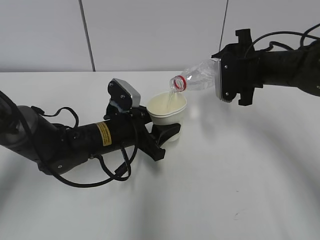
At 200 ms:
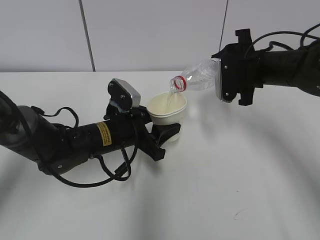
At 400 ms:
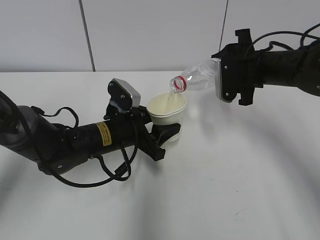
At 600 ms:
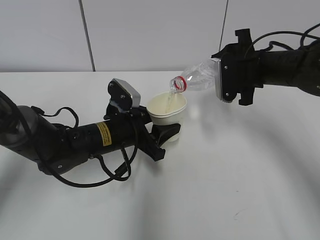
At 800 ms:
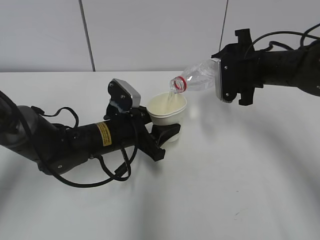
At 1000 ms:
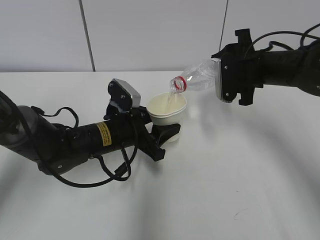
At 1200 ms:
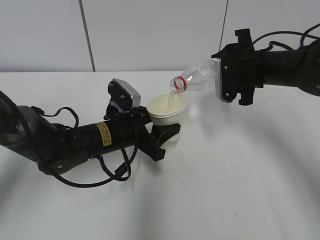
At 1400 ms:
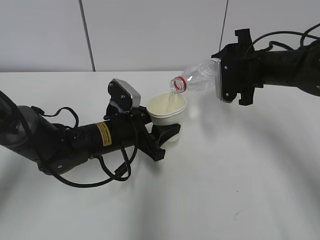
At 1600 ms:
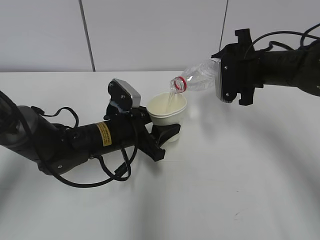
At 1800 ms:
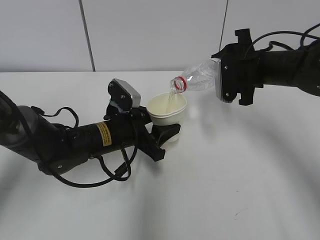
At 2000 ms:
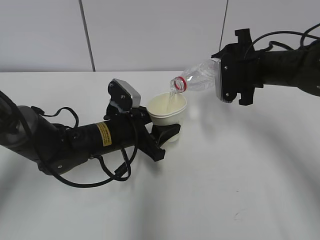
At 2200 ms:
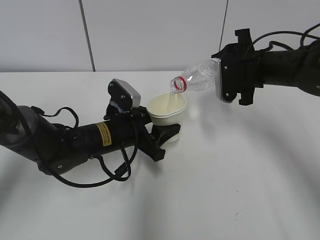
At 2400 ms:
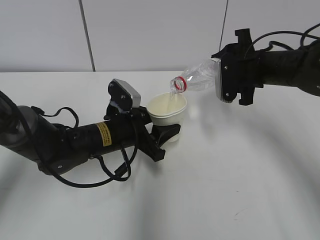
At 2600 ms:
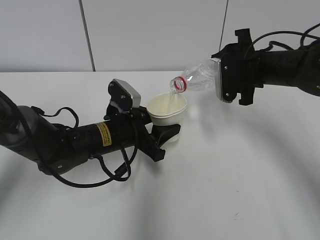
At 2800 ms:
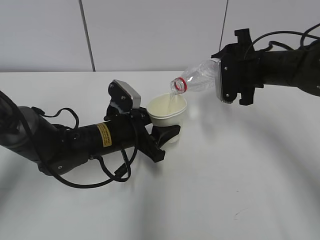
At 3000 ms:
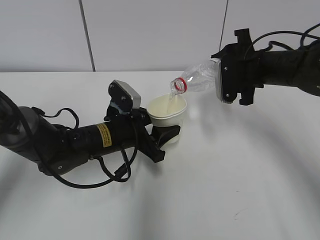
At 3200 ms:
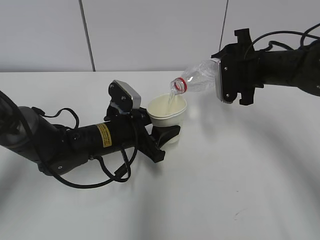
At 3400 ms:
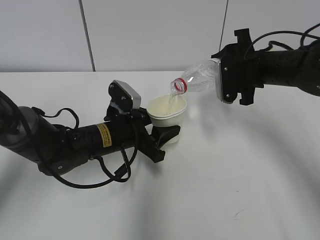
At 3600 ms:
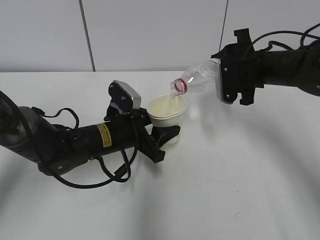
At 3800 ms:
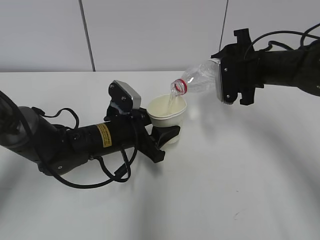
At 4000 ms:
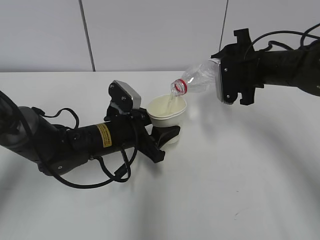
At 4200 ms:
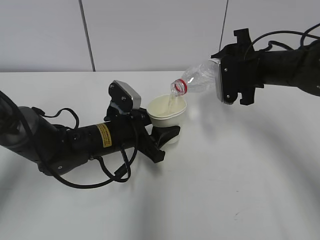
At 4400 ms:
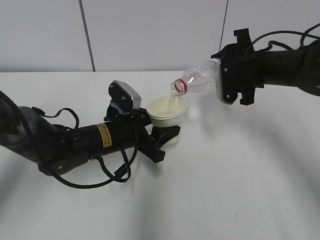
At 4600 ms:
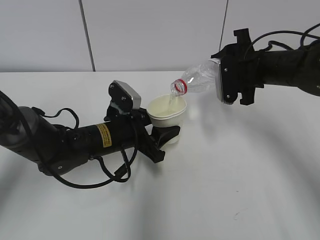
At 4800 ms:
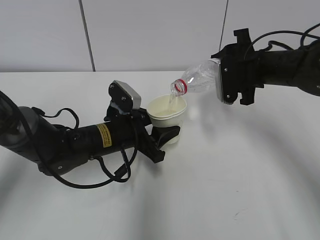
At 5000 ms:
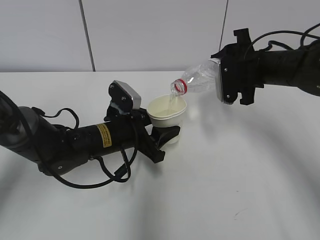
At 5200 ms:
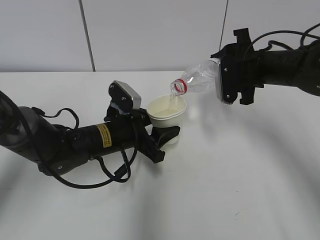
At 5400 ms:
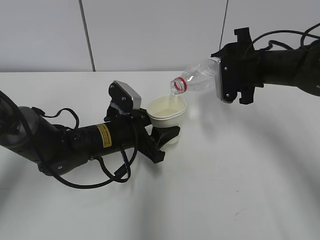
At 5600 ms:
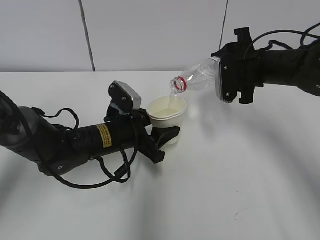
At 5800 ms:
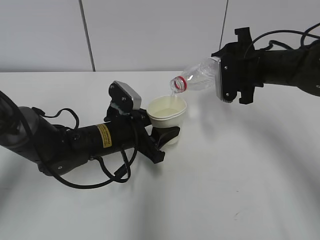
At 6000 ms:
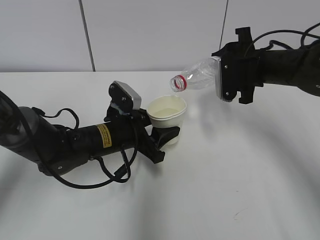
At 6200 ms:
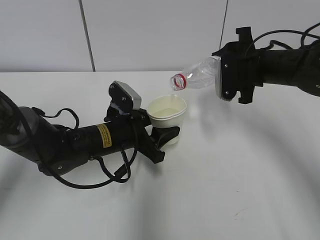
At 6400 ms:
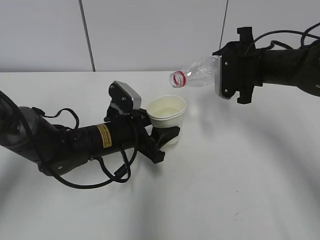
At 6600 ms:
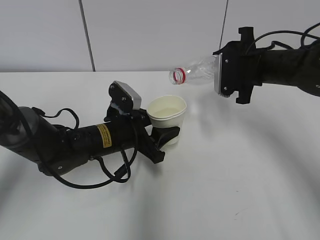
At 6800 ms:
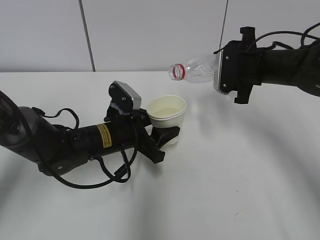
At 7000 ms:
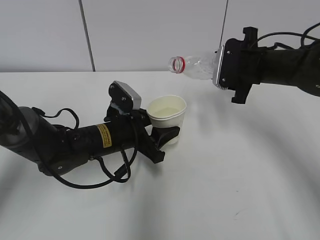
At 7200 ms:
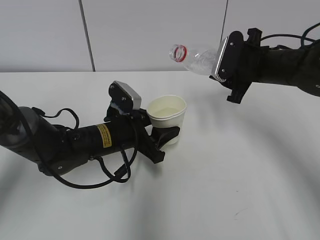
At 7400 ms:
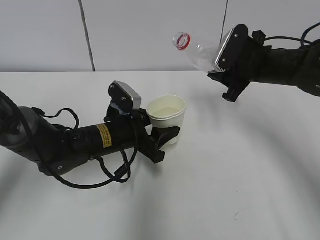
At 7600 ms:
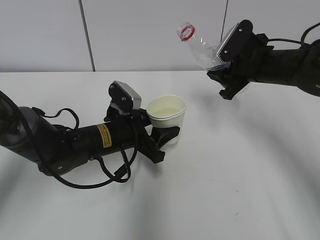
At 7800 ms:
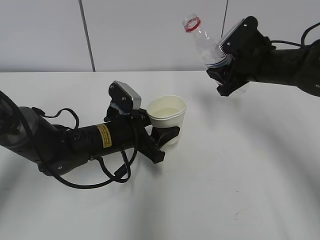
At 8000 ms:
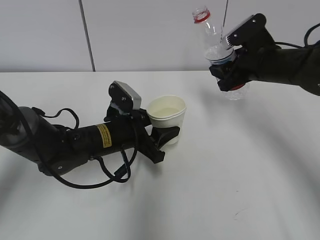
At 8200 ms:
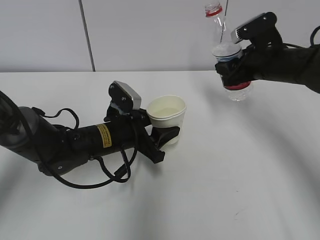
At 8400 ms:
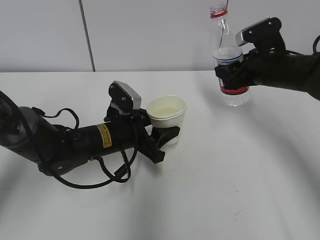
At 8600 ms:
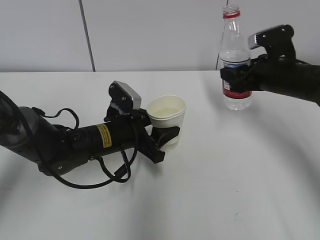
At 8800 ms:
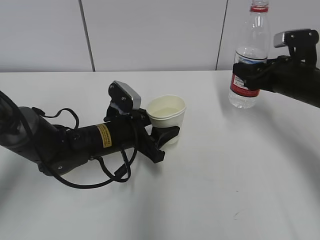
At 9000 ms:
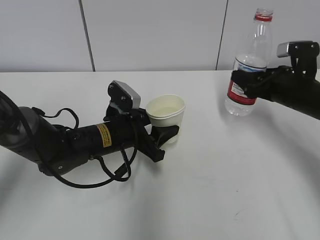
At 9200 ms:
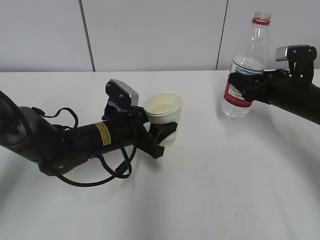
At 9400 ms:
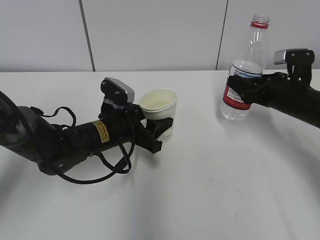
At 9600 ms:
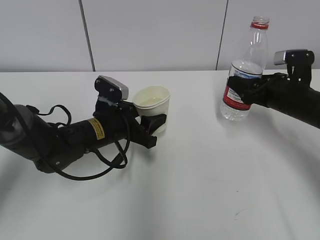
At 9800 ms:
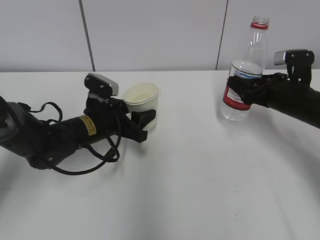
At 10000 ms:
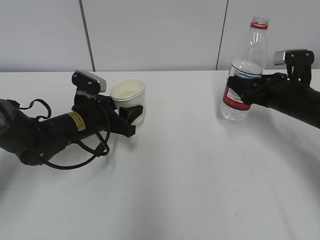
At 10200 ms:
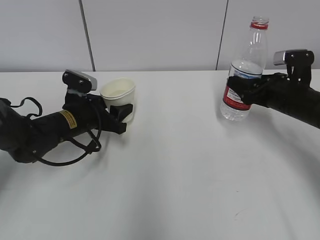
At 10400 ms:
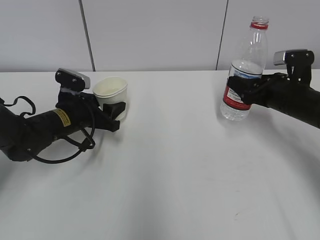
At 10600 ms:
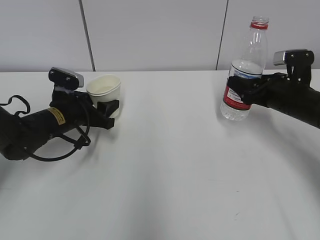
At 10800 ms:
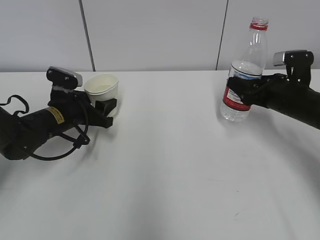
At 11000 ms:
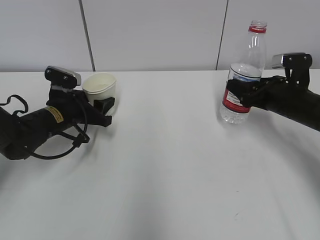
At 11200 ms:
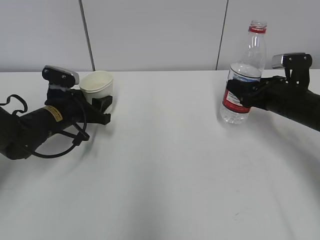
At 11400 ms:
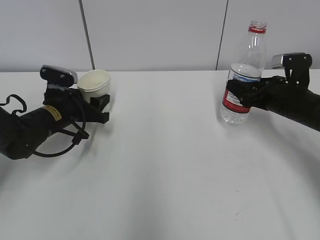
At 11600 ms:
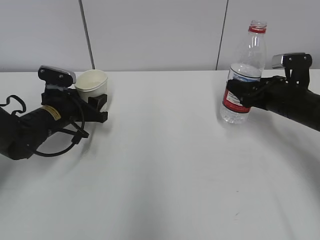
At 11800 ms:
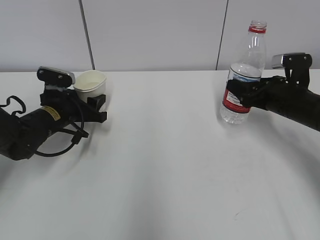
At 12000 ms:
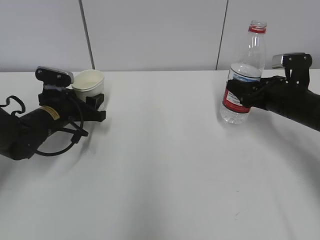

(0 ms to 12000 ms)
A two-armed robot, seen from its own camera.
Step, 4800 ms - 11400 ms: Place the paper cup with the left hand.
0 ms - 6000 ms: The two grippers keep their place.
7600 ms - 9000 ms: The right gripper shifts about 5 cm to the right.
9000 ms - 10400 ms: The left gripper moves to the left, roughly 10 cm.
10400 ms - 12000 ms: The grippers stay close to where they were, moving slightly.

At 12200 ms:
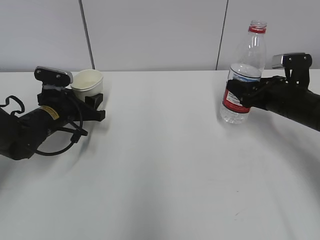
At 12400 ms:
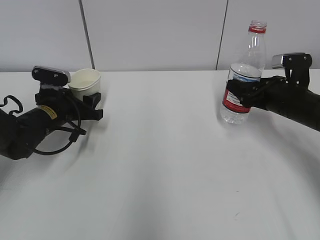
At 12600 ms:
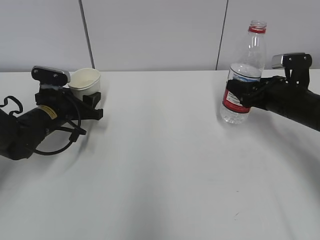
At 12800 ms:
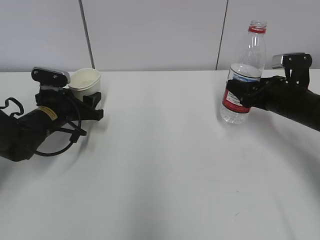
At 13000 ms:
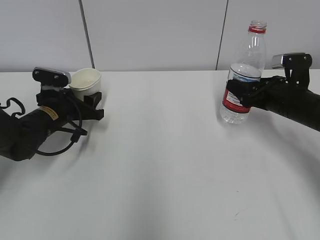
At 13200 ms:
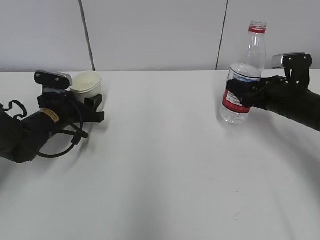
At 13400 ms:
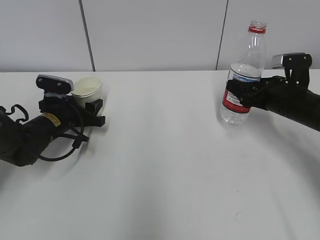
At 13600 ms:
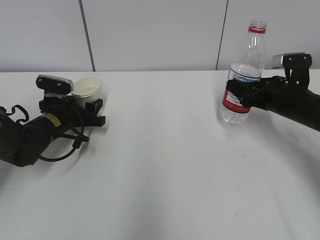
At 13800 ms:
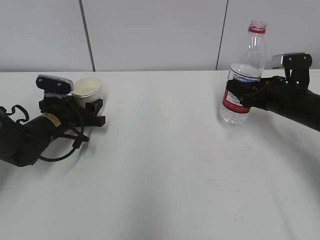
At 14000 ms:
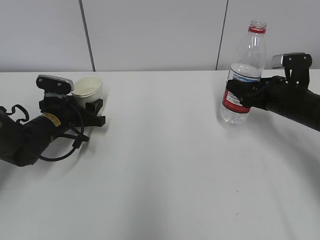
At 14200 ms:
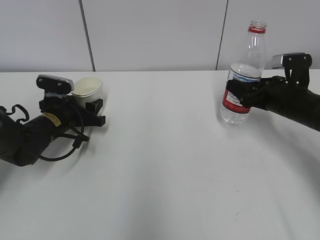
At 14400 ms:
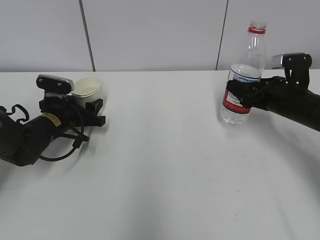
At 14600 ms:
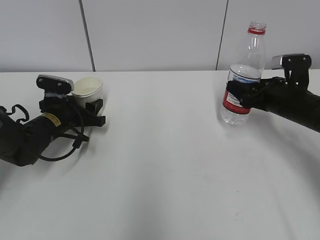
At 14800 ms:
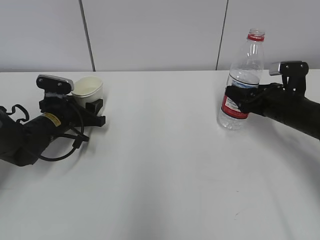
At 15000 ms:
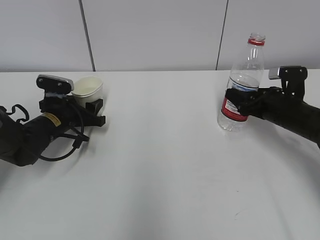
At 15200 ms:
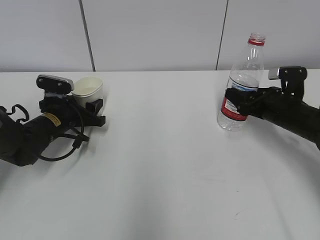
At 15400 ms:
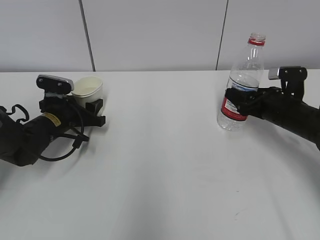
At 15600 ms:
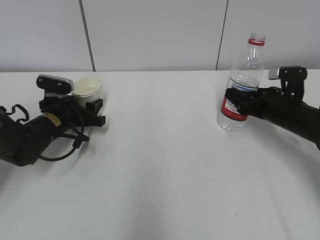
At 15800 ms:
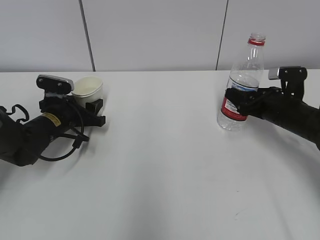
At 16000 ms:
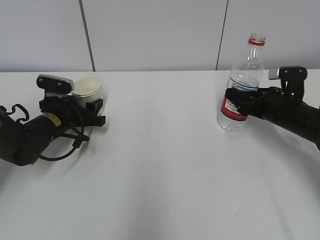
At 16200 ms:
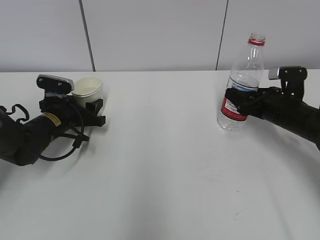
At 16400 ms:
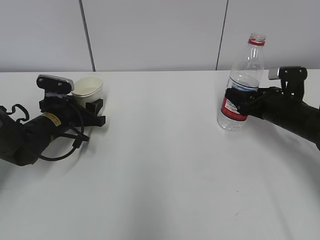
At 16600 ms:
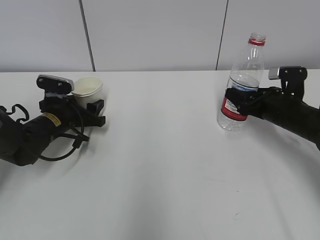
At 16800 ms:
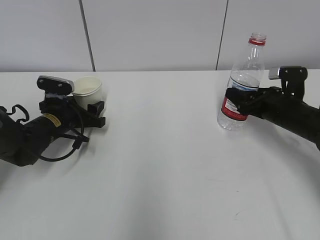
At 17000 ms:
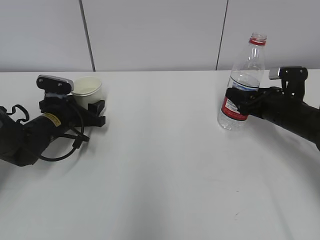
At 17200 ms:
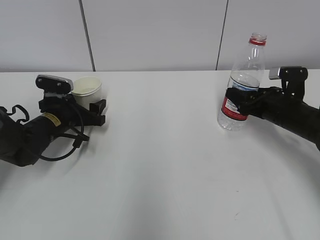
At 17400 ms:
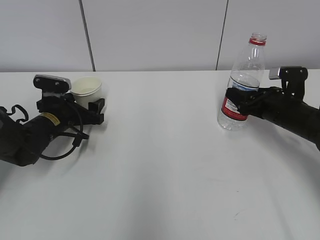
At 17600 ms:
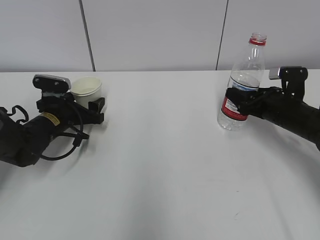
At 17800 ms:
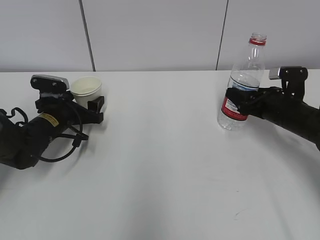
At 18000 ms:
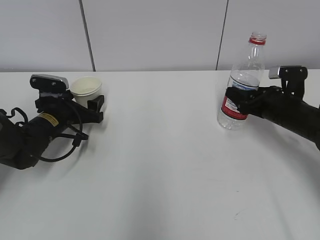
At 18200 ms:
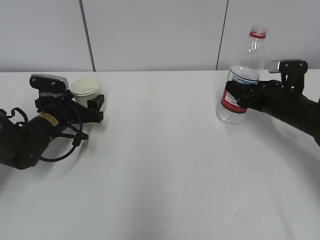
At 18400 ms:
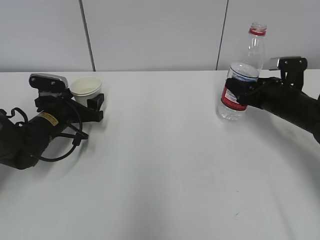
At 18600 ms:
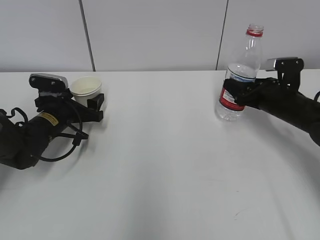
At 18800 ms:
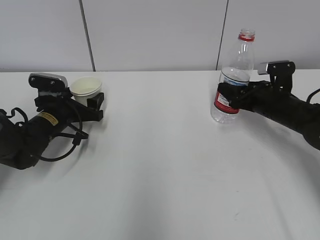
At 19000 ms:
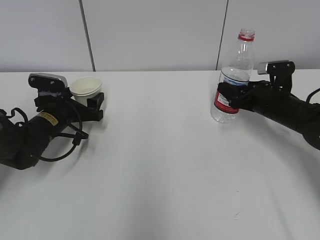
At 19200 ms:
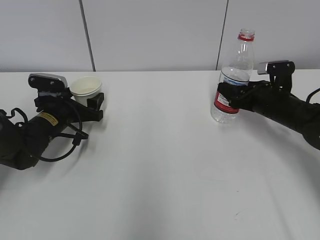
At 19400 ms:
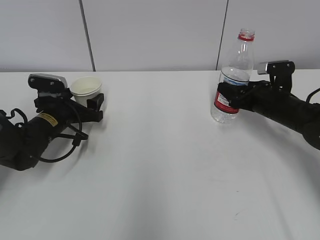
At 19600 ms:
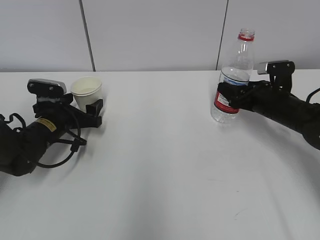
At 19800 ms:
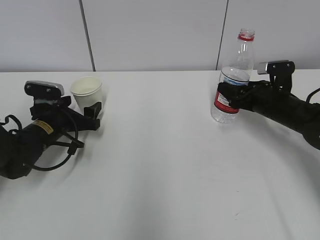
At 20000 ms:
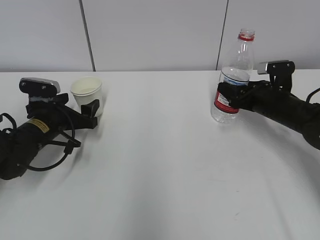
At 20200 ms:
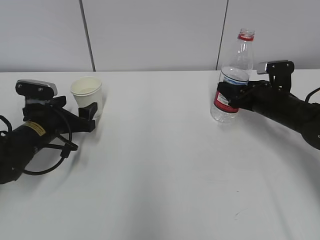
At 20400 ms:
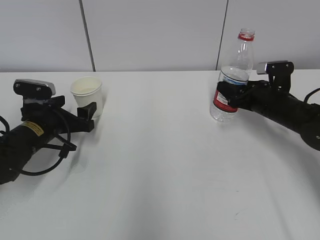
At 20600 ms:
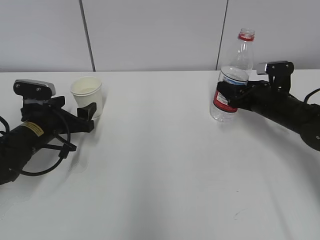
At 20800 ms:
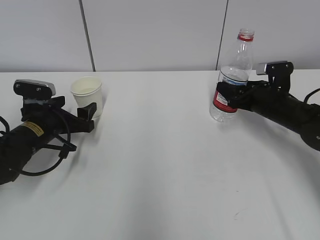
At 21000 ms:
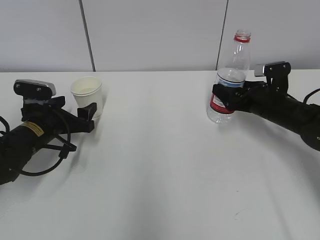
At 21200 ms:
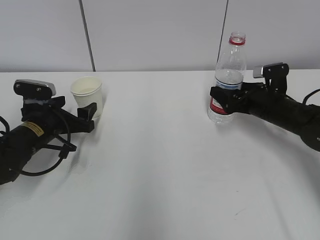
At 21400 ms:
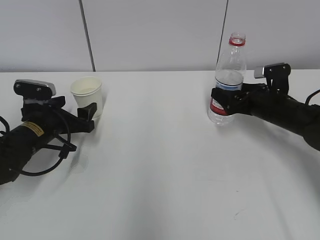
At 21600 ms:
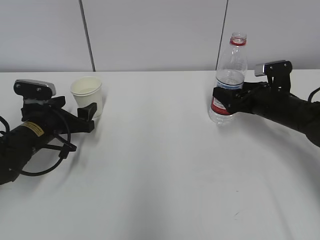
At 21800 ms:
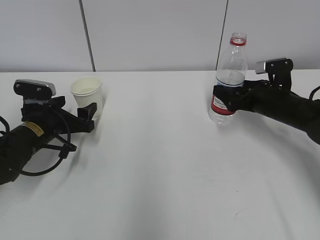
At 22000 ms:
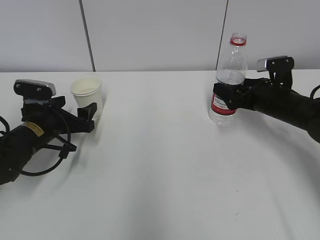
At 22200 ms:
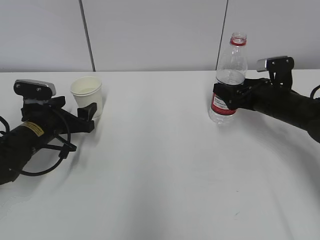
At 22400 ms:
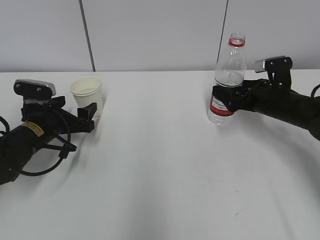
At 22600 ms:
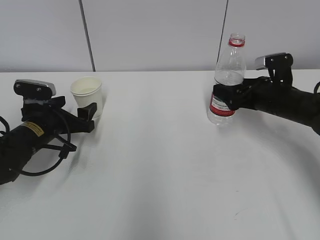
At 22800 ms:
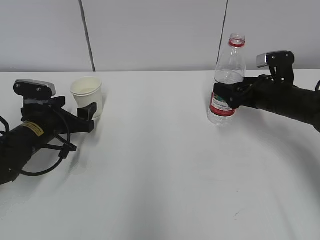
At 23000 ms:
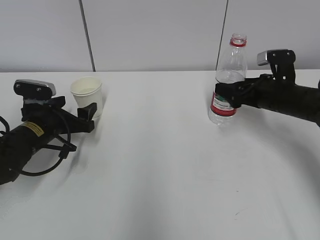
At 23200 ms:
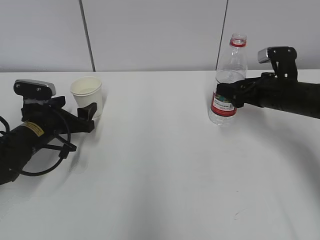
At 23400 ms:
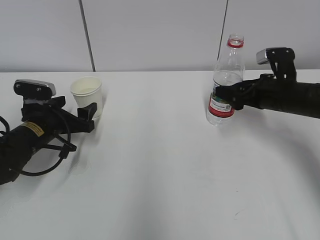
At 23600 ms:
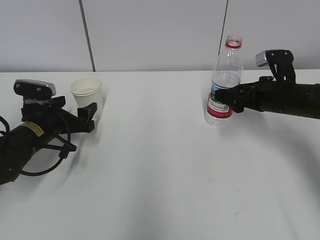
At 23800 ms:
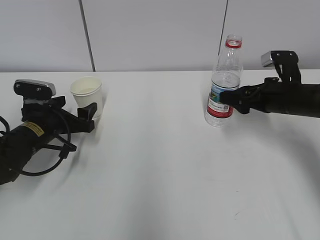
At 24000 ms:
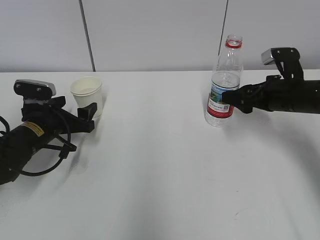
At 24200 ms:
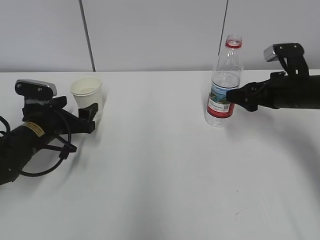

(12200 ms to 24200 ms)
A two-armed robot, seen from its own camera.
Step, 12200 ms - 15000 ms: Place the water bottle with the right hand.
12200 ms - 15200 ms: There are only small adjustments of the grippers.
15200 ms - 16600 ms: Both grippers stay about where they are.
16600 ms - 18200 ms: The left gripper opens its fingers.
18200 ms - 19800 ms: The grippers stay close to where they were, moving slightly.
19800 ms - 21200 ms: The right gripper opens its fingers.
21200 ms - 22600 ms: The grippers stay close to where they were, moving slightly.
22600 ms - 24200 ms: There are only small adjustments of the grippers.
